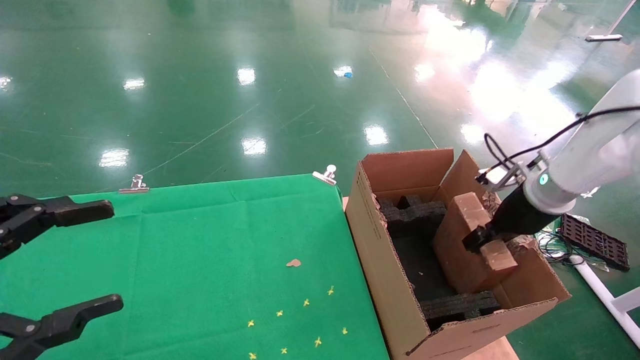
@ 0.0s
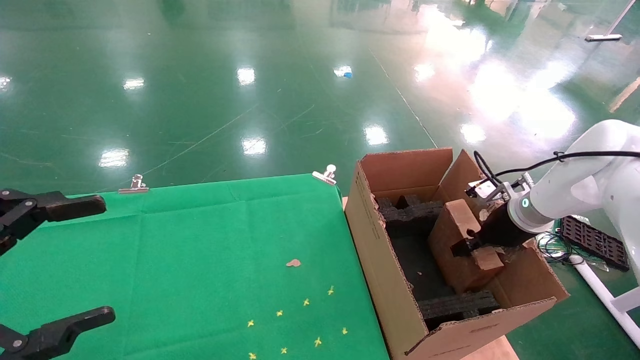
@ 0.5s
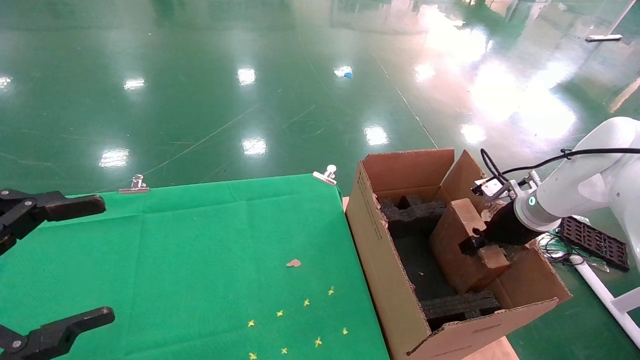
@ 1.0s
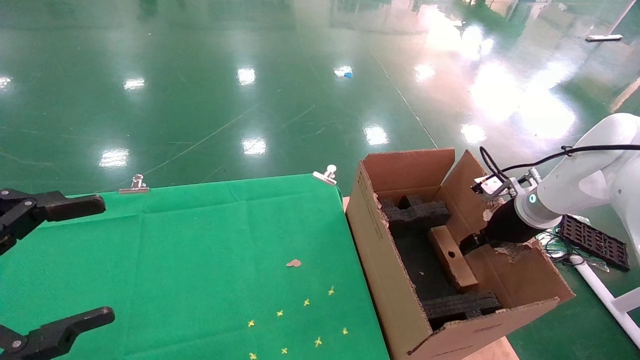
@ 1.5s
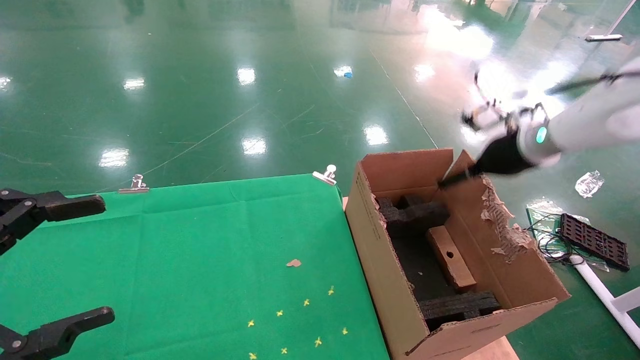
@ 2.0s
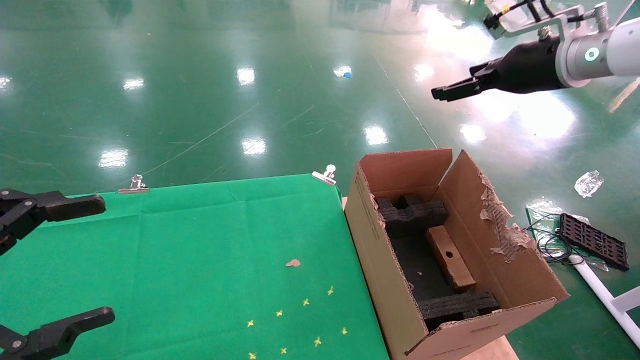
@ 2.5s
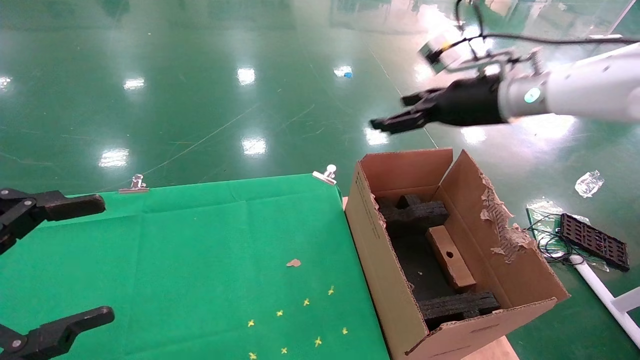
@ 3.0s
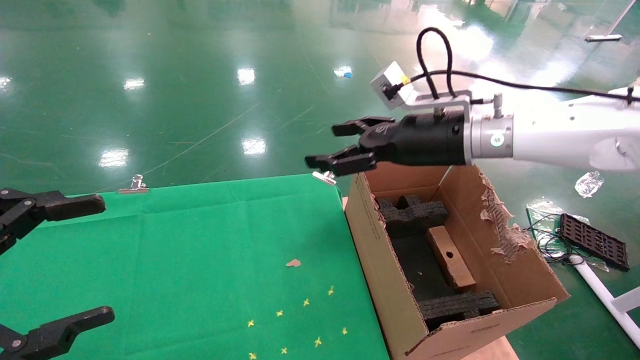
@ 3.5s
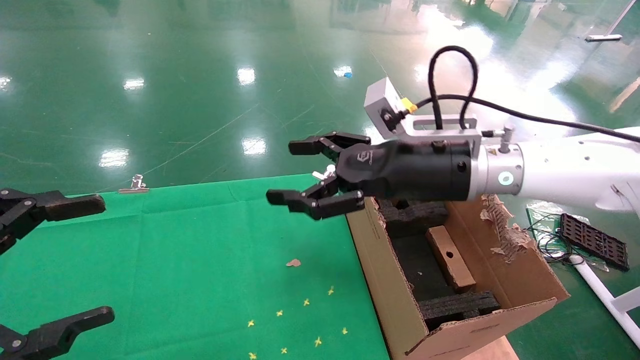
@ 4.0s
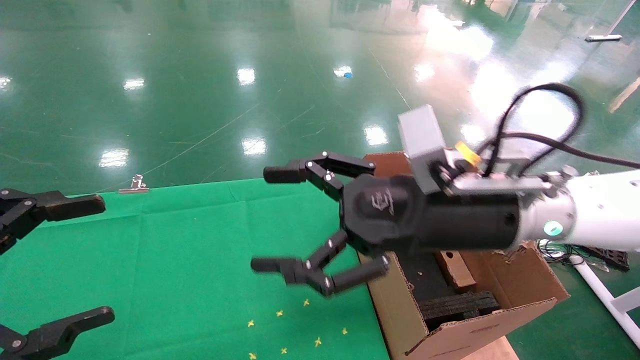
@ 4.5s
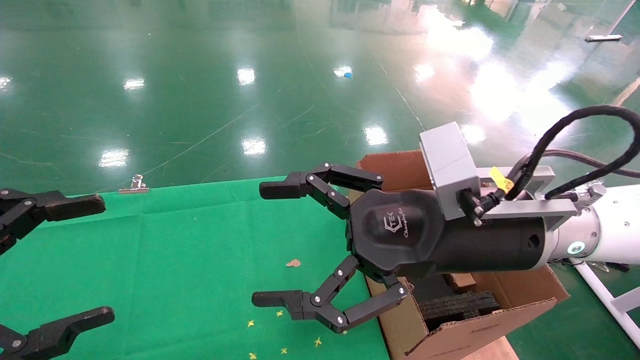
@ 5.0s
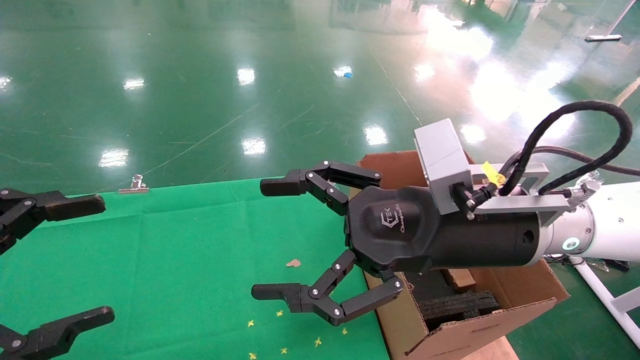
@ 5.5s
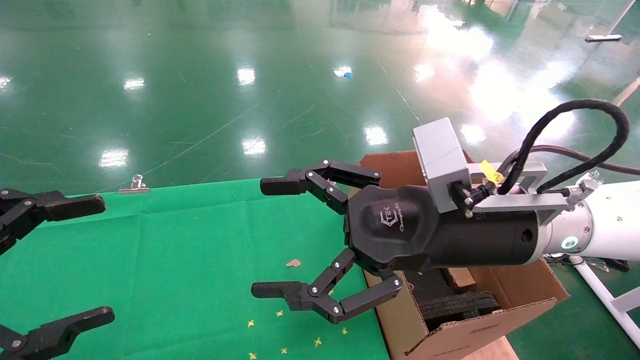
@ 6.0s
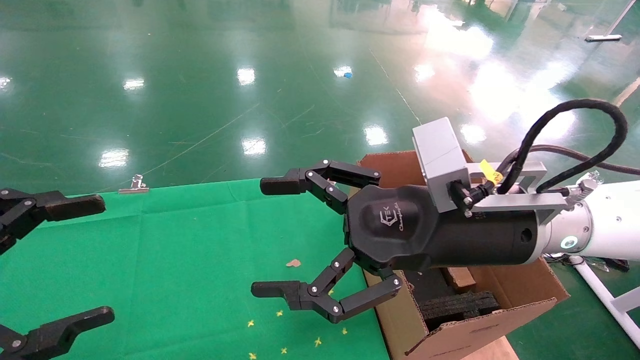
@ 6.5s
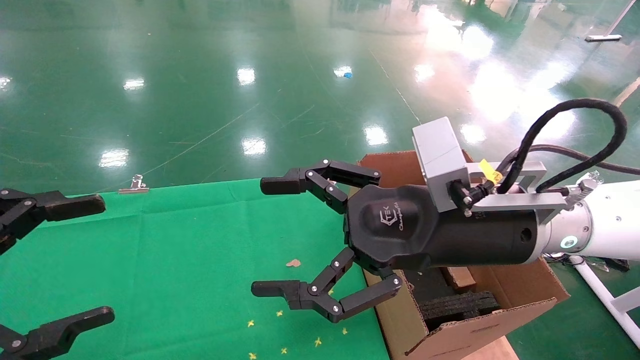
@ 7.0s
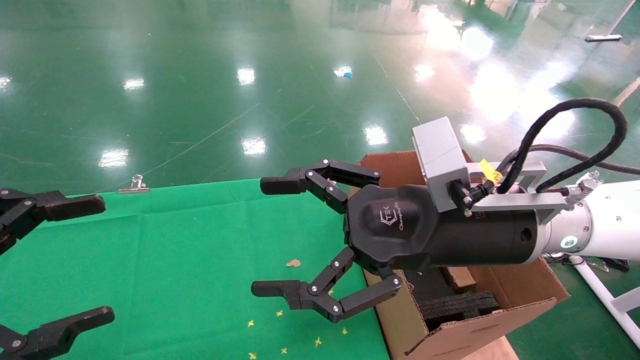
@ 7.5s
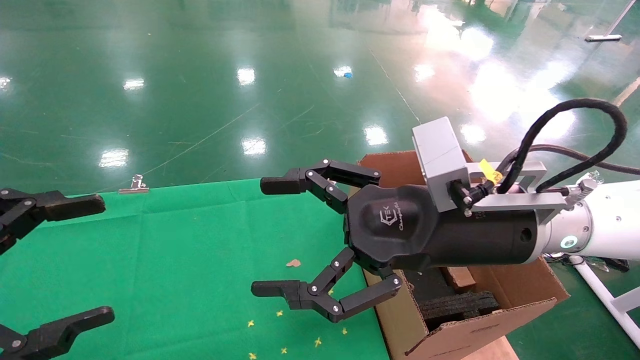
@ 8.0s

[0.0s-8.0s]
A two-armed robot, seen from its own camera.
Task of the whole recording: using a robotic arm to pick up a cardboard box and palace it the carton.
0.0s to 2.0s: The right gripper travels upward by approximately 10 cm, and opens its fingers.
2.0s to 4.0s: The right gripper heads to the left and backward, covering some 20 cm.
4.0s to 6.0s: The right gripper travels backward by some 10 cm.
6.0s to 8.0s: Both grippers stay about where they are.
